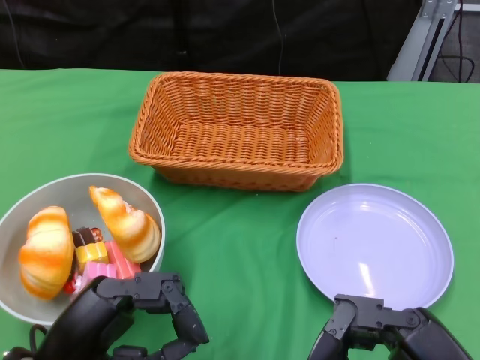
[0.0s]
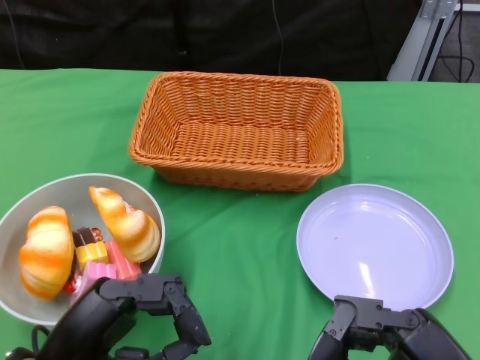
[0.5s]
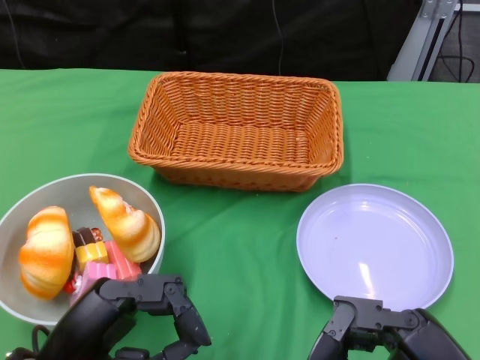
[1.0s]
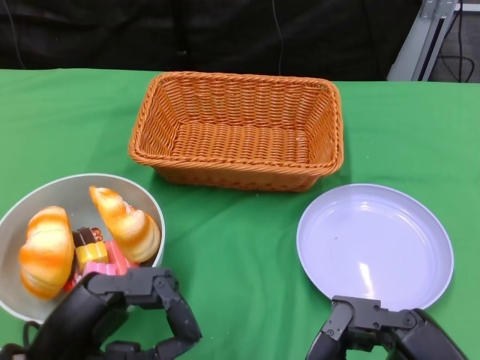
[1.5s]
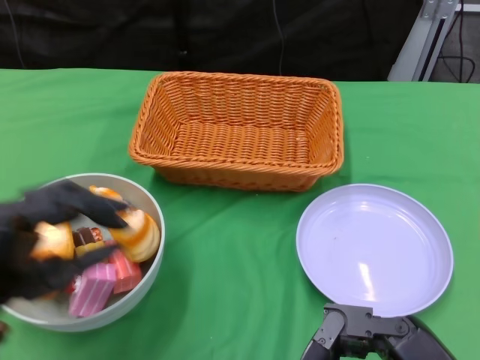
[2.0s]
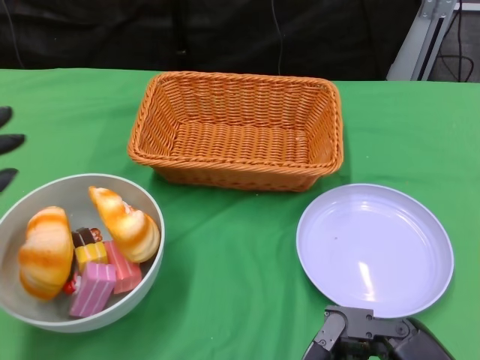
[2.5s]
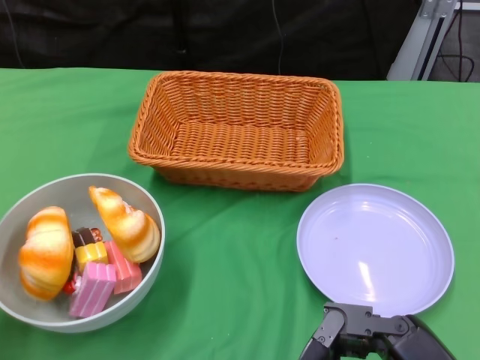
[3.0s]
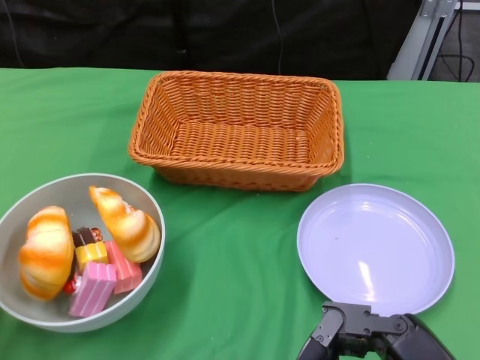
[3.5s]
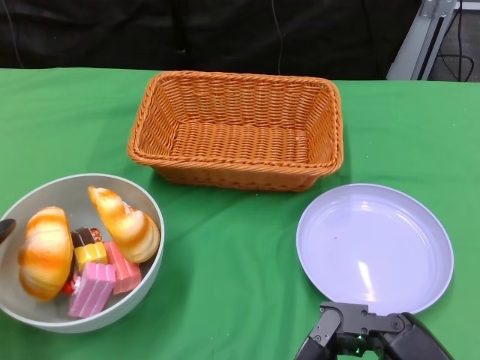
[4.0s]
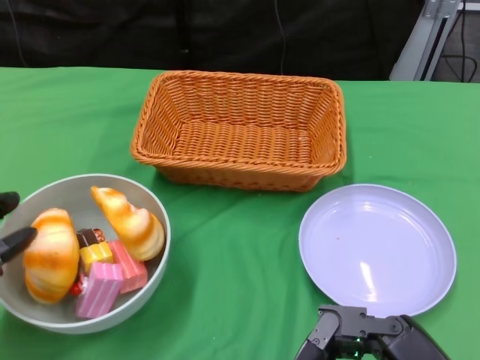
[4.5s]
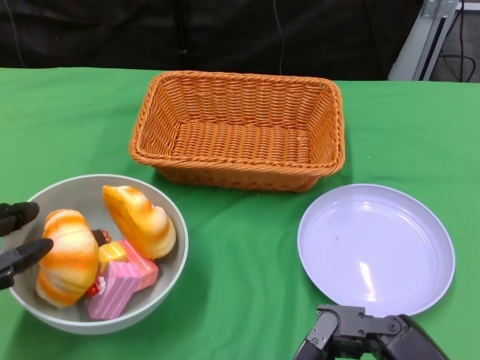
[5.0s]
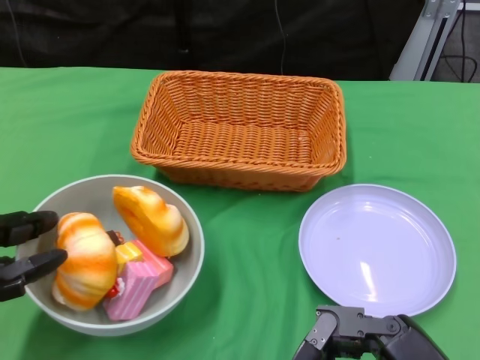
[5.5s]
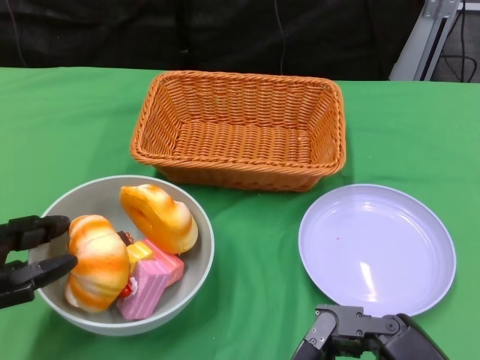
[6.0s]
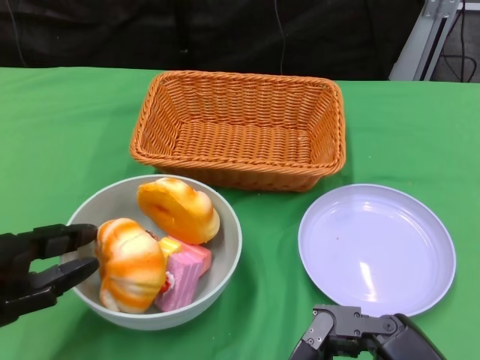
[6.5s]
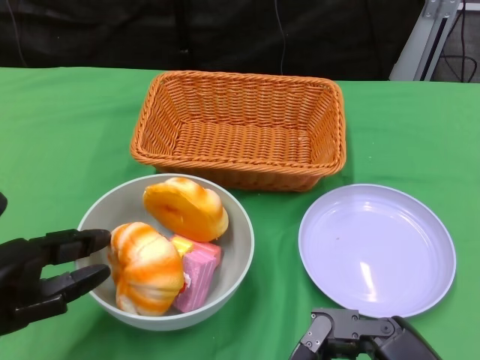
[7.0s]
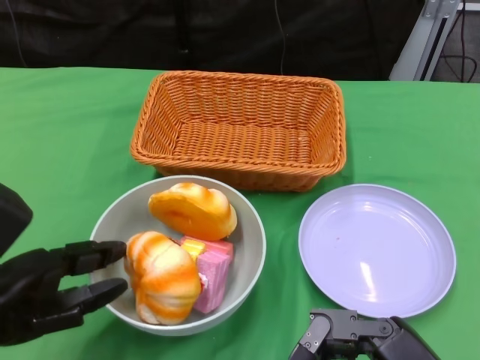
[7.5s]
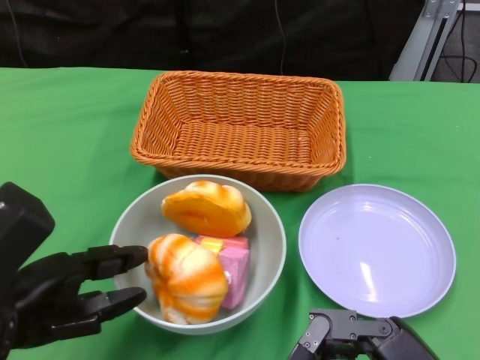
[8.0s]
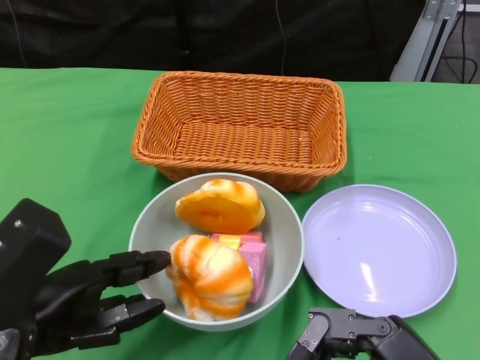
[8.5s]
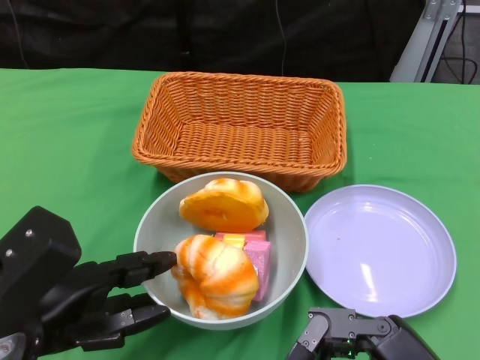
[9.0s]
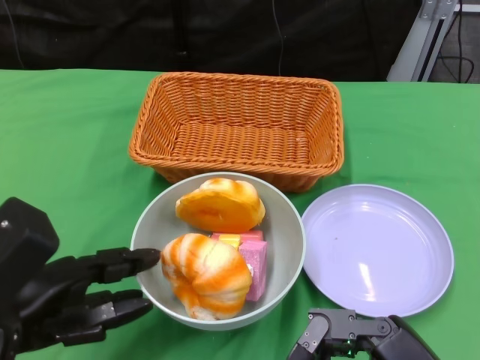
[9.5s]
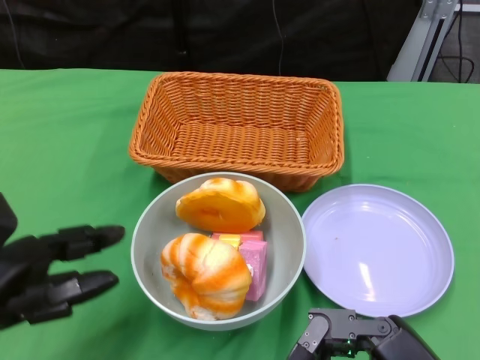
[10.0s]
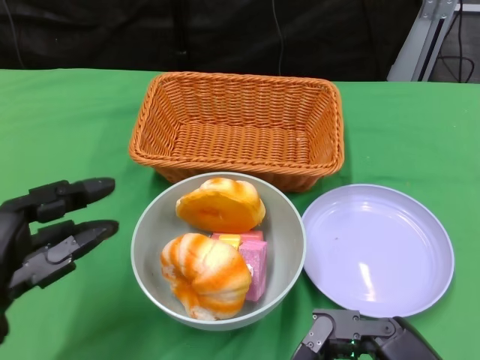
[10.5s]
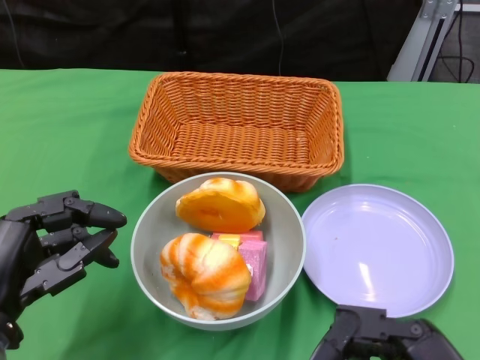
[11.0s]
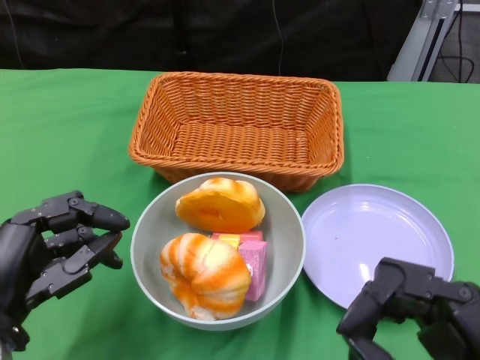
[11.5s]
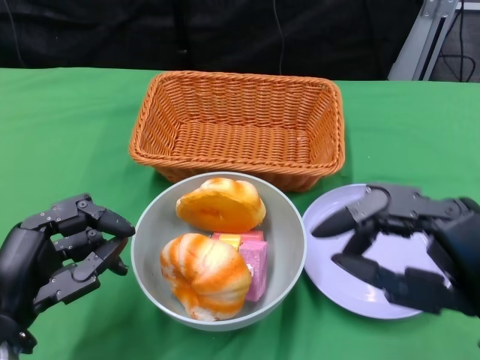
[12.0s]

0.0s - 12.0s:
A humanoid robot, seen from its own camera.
Step, 0.0s - 9.5s: Push the bowl to the center of the table using the left gripper.
2.0s - 4.0s: The left hand travels to the left by some 10 cm.
10.0s - 12.0s: The left hand shifts roughly 5 cm downward; the right hand moves upward, some 5 cm.

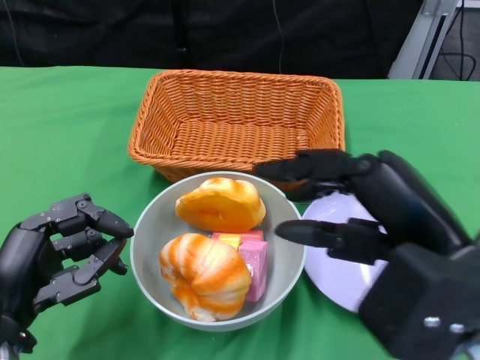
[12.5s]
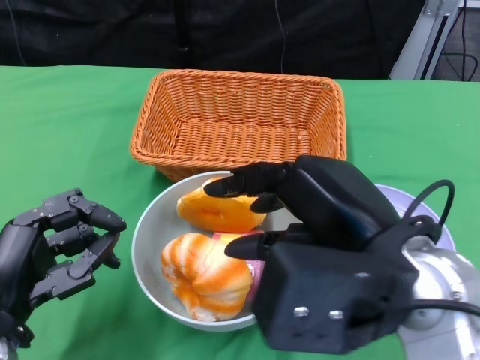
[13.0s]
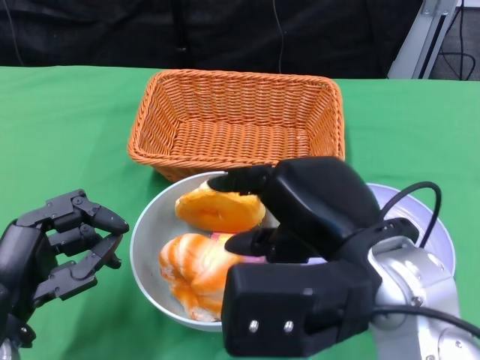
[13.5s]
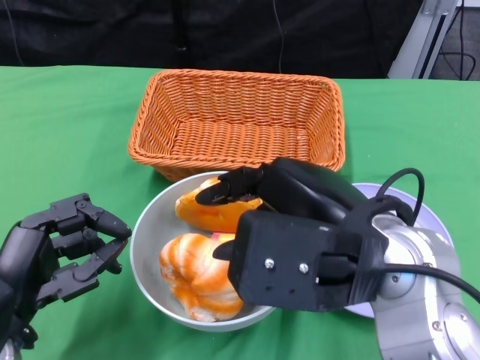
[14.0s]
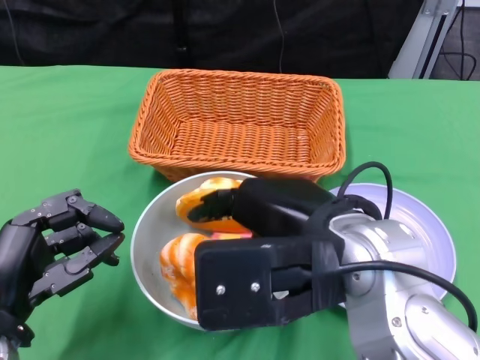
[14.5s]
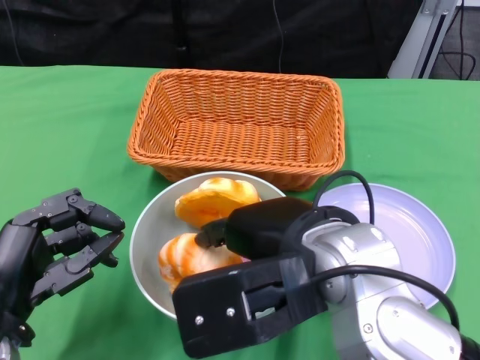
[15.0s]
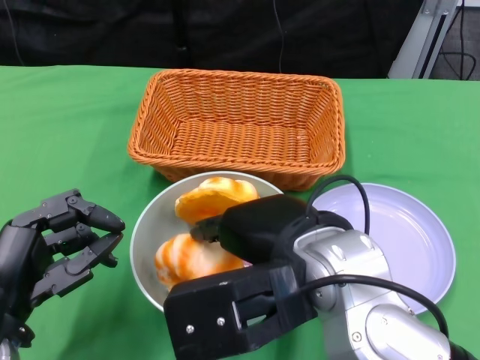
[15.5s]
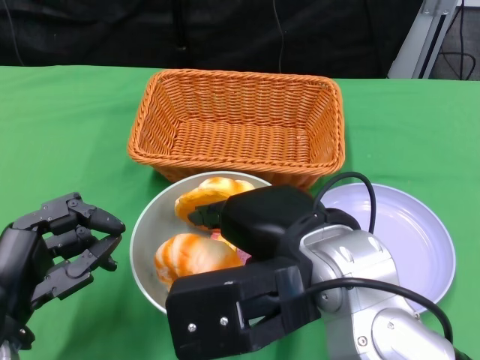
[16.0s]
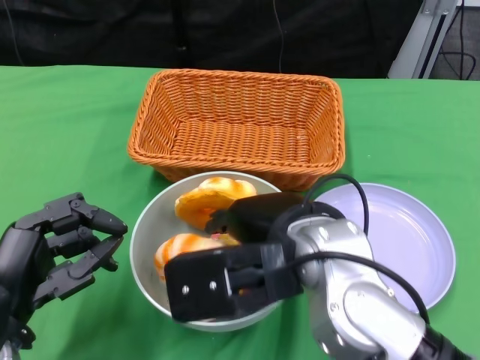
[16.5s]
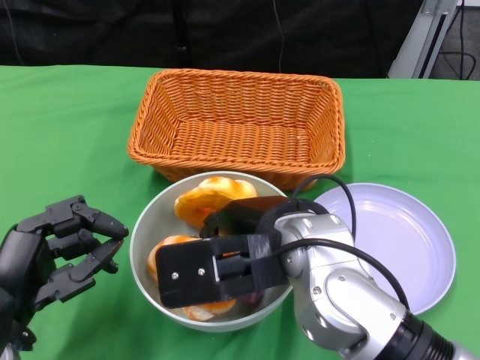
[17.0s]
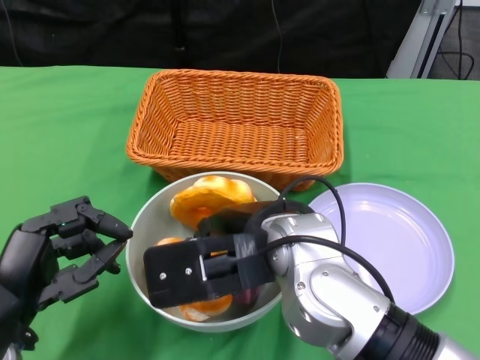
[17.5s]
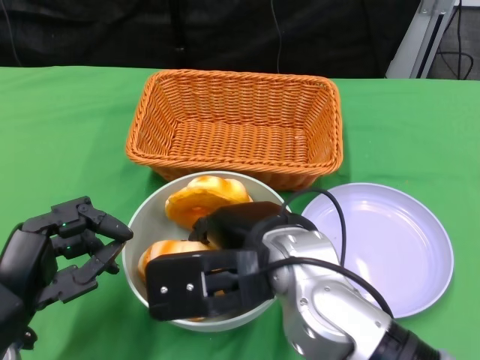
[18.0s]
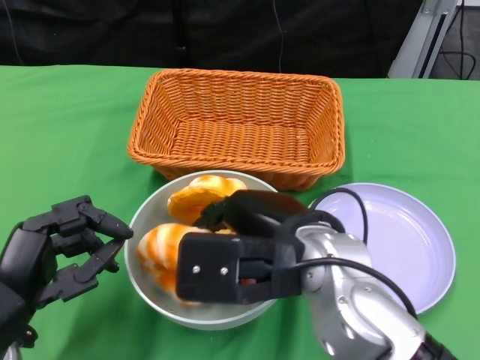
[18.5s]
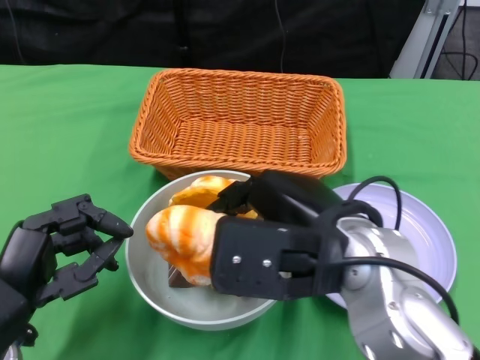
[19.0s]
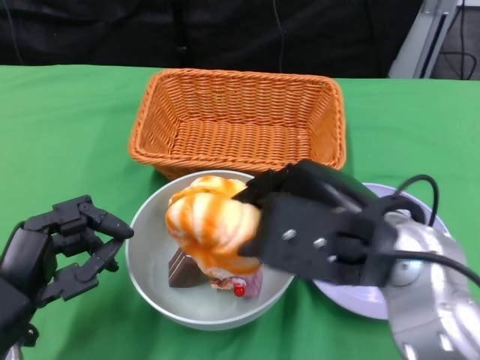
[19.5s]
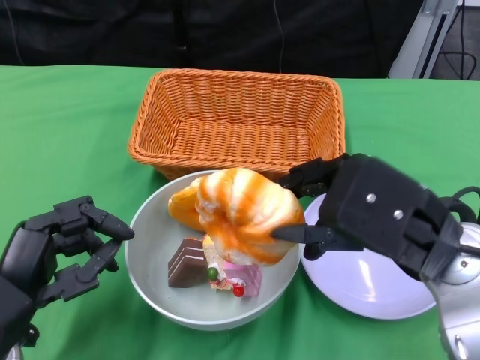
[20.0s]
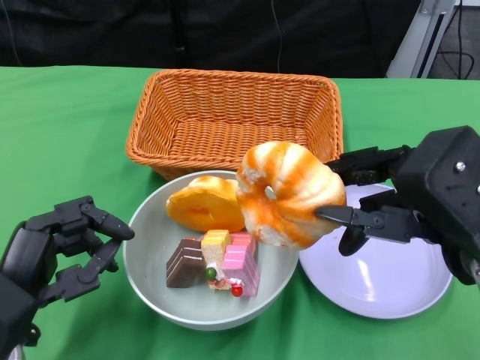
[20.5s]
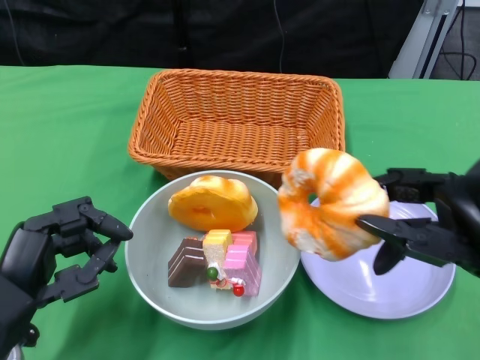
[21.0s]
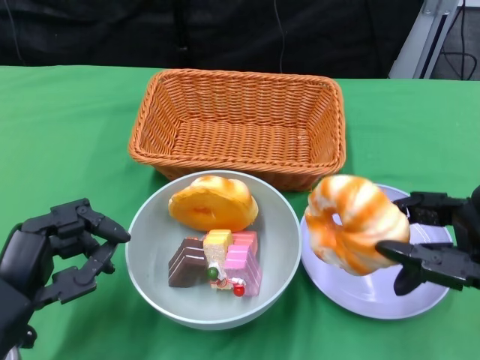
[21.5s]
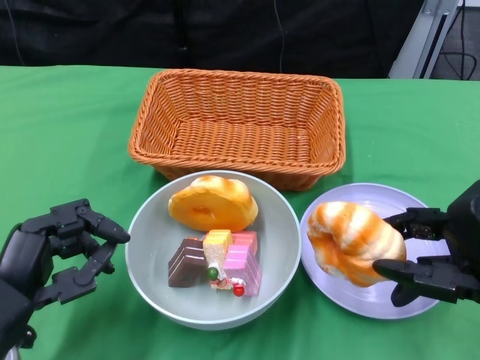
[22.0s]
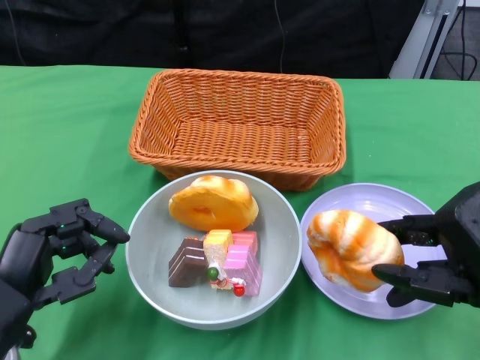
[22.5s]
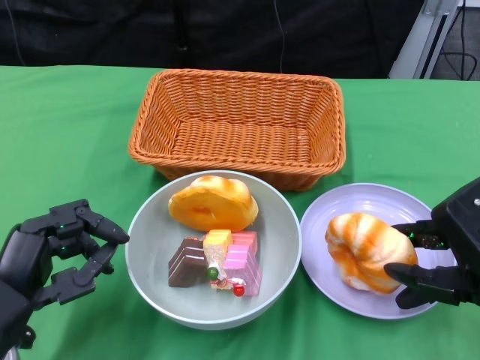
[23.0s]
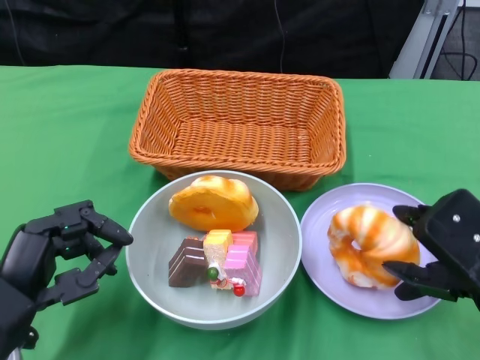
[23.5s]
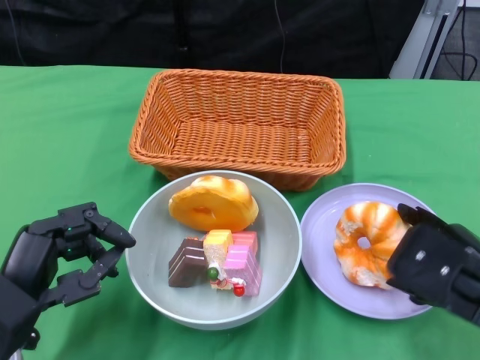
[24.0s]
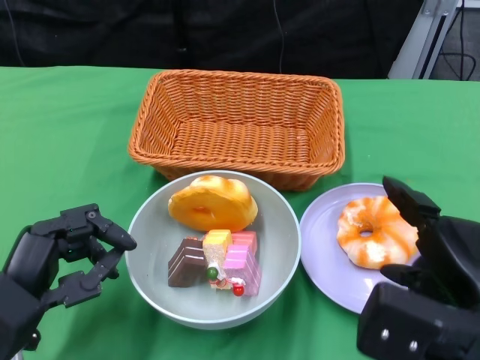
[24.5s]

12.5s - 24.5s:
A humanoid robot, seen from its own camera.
12.5s - 14.5s: The right hand travels to the left by about 10 cm.
16.5s - 18.5s: The hands make only small movements.
18.5s - 20.5s: The right hand is displaced to the right by about 15 cm.
20.5s - 22.5s: The right hand shifts approximately 5 cm downward.

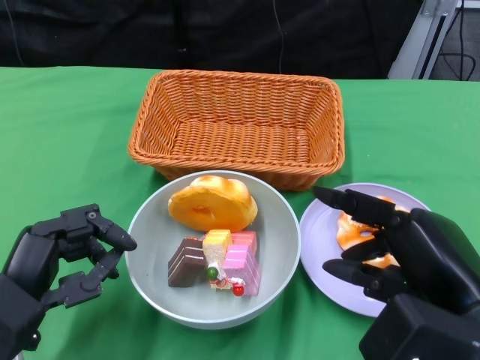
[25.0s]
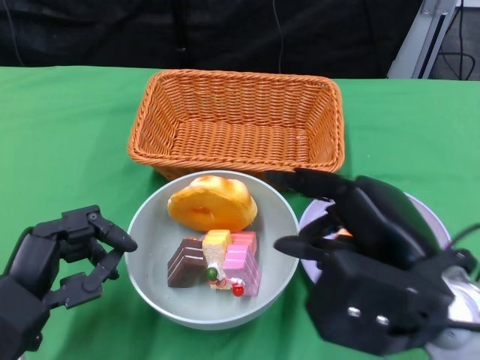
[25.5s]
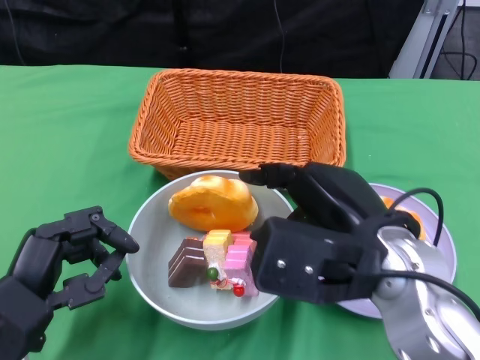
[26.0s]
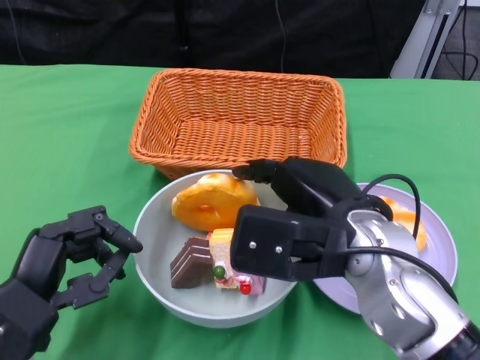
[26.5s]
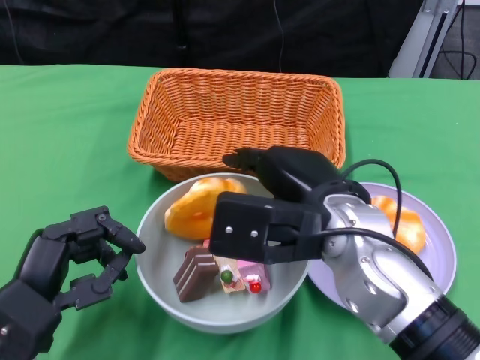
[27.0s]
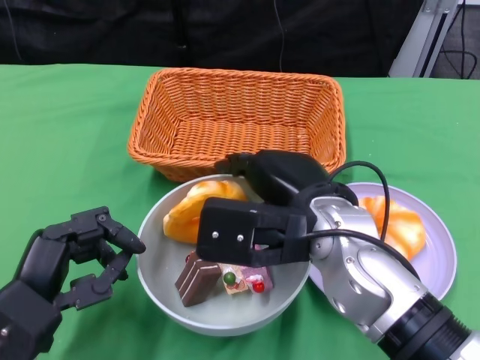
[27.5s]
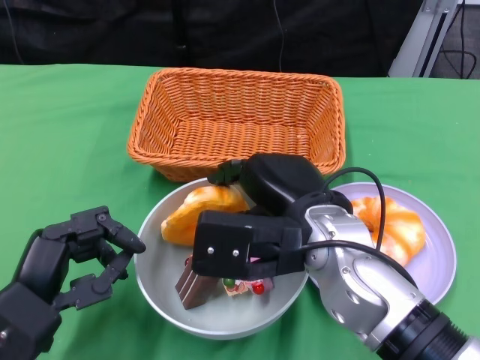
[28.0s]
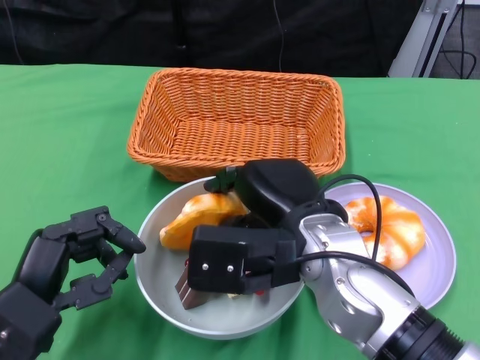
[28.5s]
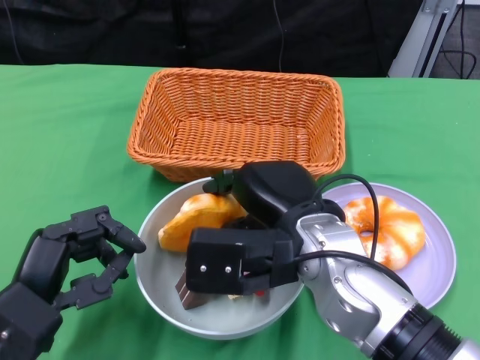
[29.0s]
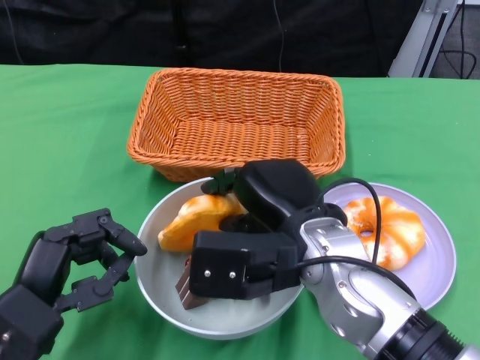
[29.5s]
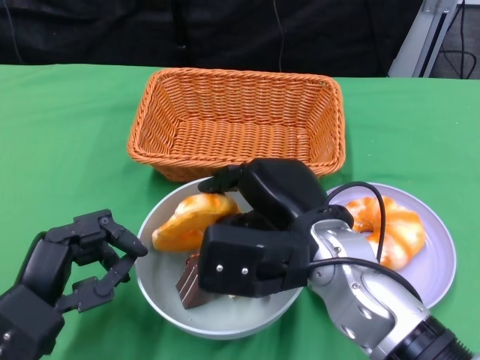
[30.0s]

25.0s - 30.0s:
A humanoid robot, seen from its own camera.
25.0s - 27.5s: The right hand shifts some 15 cm to the left and forward.
27.5s - 30.0s: The hands stay close to where they were, moving slightly.
